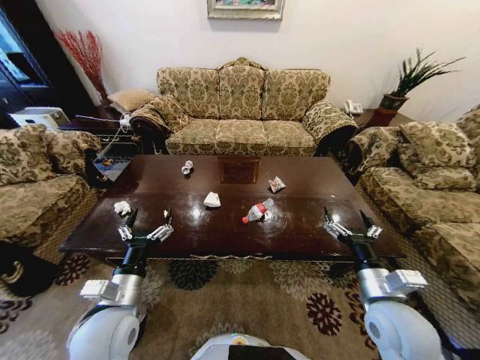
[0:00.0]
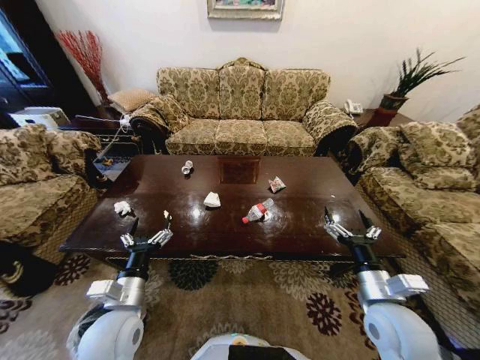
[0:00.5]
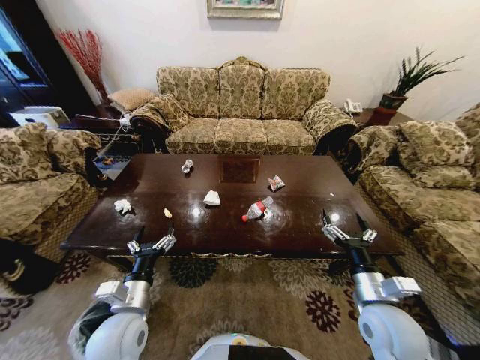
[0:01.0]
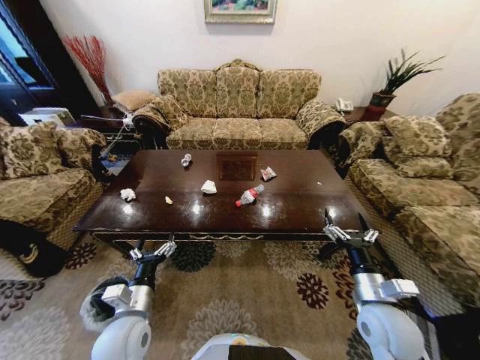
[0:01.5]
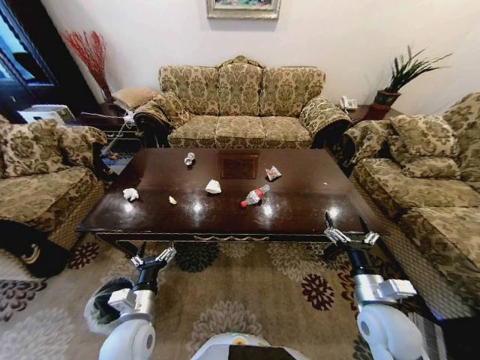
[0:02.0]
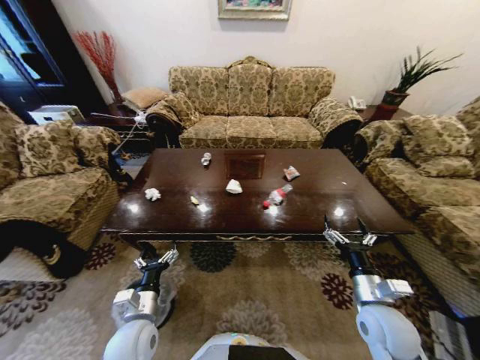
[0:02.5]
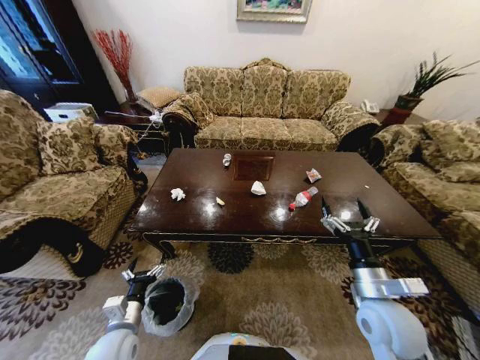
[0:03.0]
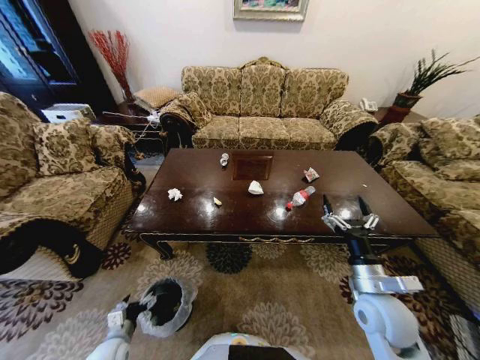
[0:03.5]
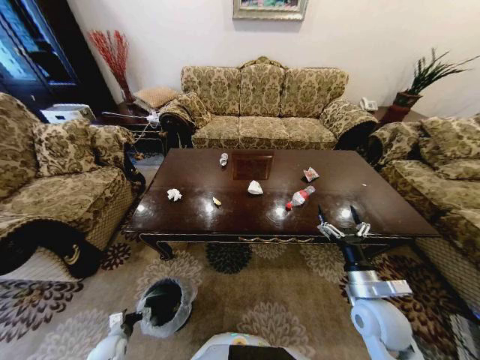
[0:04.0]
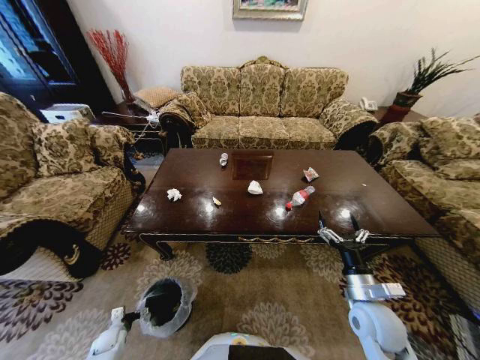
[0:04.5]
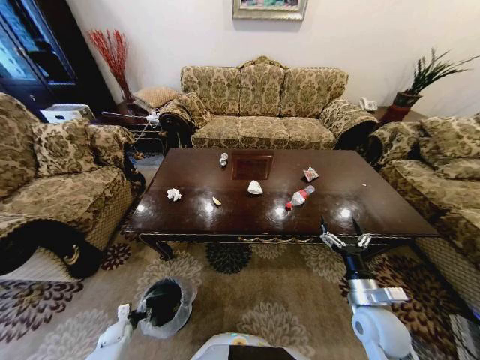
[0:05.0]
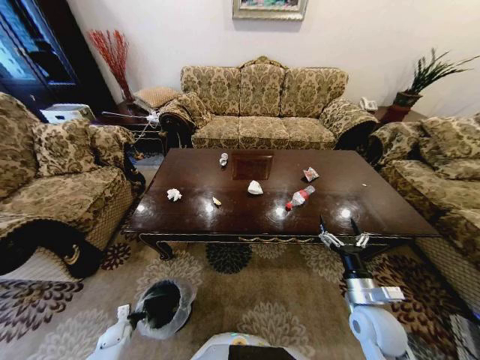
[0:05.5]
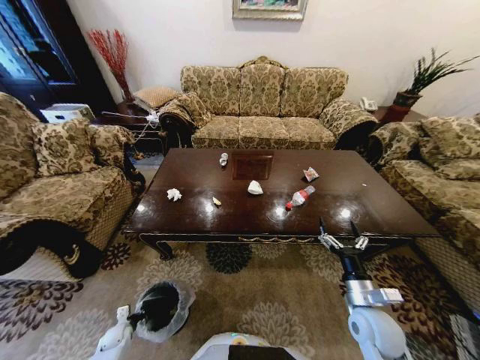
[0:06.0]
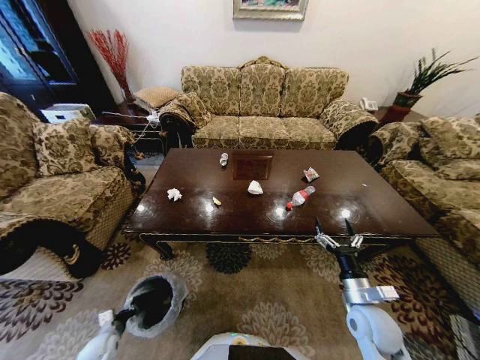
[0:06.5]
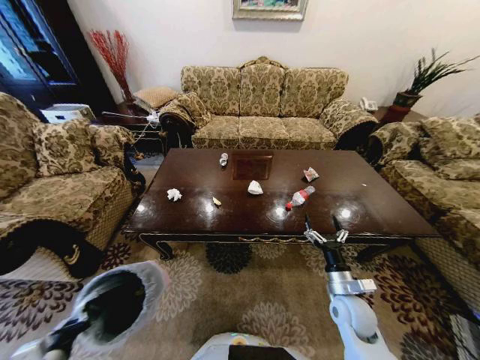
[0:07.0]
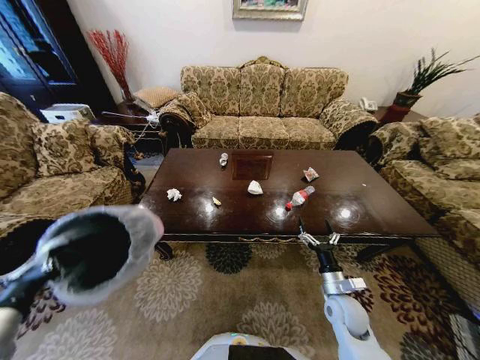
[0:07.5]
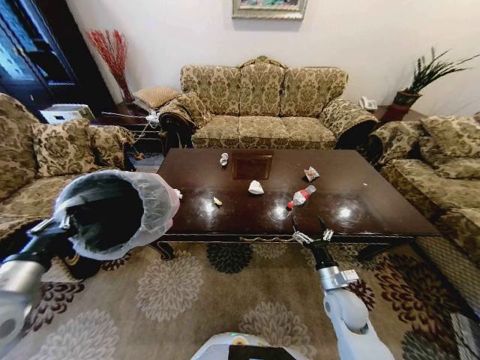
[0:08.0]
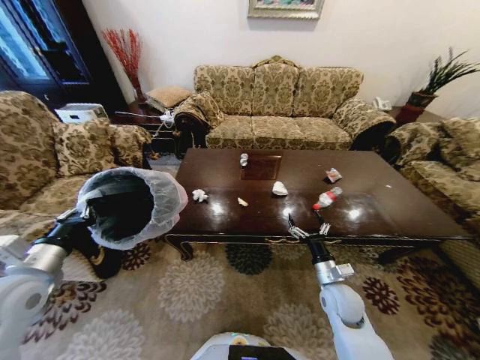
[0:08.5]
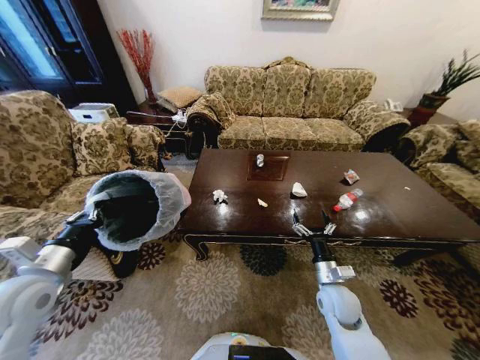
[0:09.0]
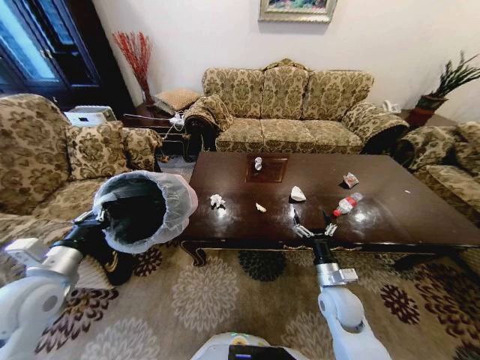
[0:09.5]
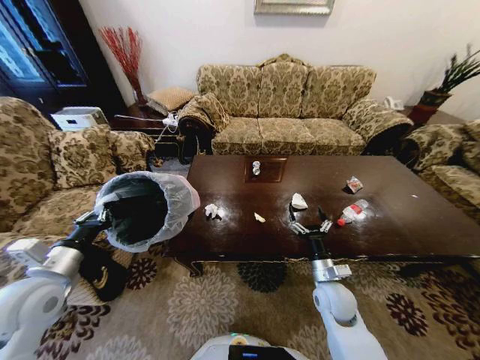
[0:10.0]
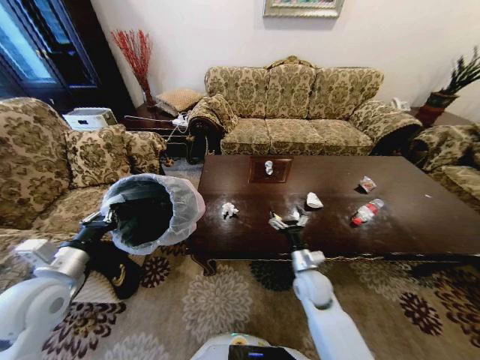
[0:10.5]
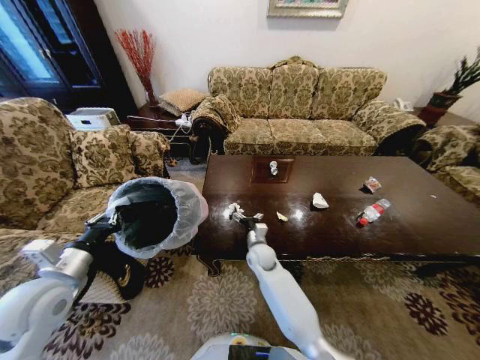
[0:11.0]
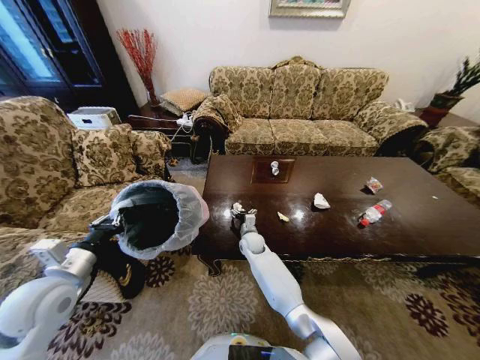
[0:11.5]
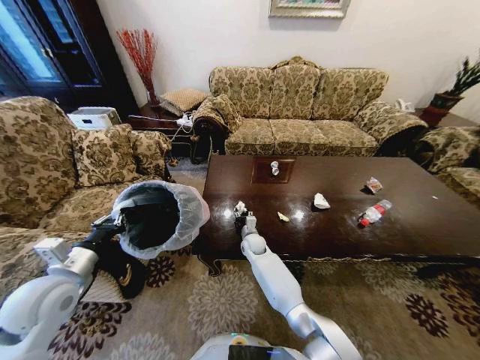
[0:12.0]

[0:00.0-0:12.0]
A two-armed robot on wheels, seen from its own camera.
Task of the whole recording: Move to the front of the table and place the trash on the table into the trash bin.
0:02.0 to 0:04.0: The left gripper moves downward and to the left, about 30 cm.
0:04.0 to 0:06.0: The left gripper shifts roughly 5 cm downward, and closes.
0:06.0 to 0:08.0: The right gripper travels forward by approximately 5 cm; the left gripper travels upward by roughly 50 cm.
0:10.0 to 0:12.0: The right gripper moves to the left and forward, approximately 30 cm, and closes up.

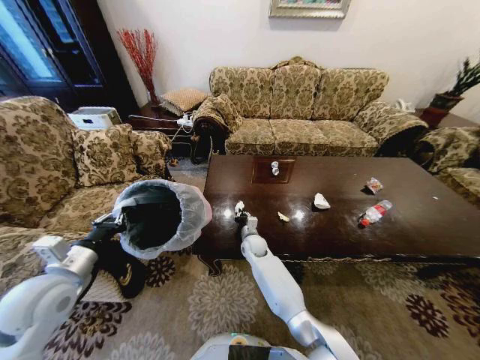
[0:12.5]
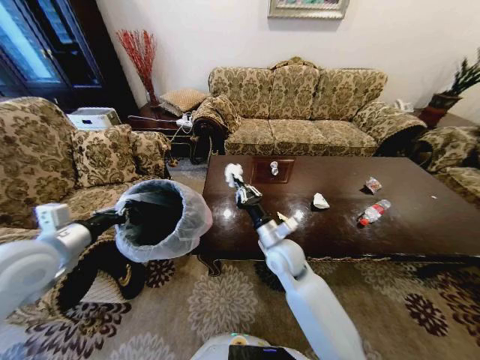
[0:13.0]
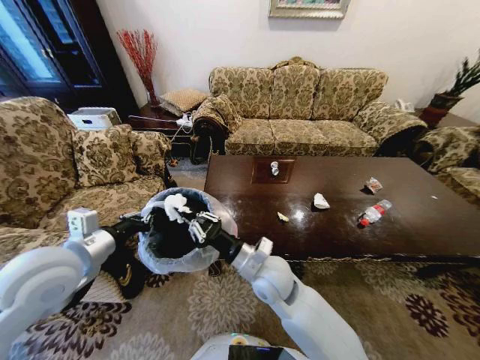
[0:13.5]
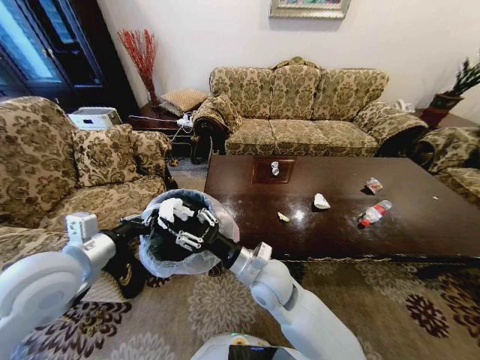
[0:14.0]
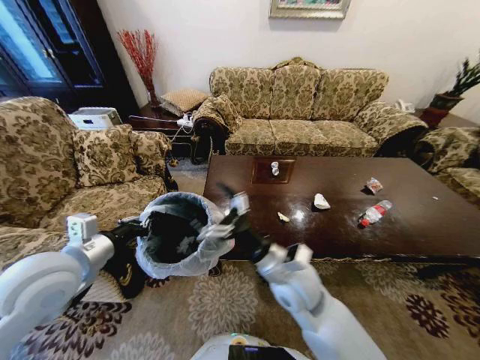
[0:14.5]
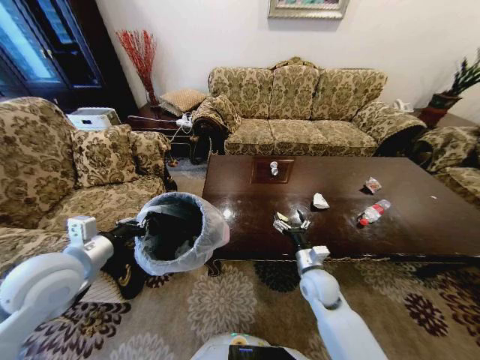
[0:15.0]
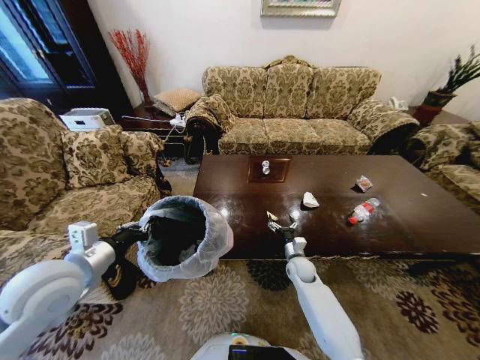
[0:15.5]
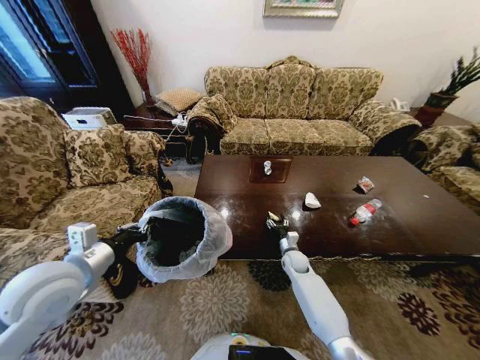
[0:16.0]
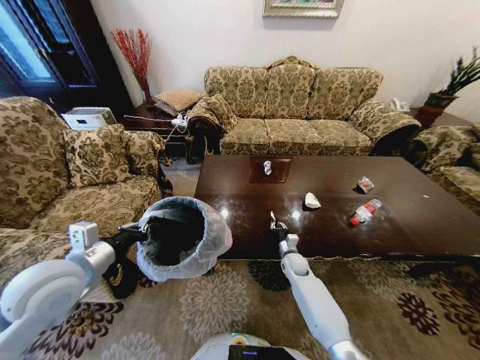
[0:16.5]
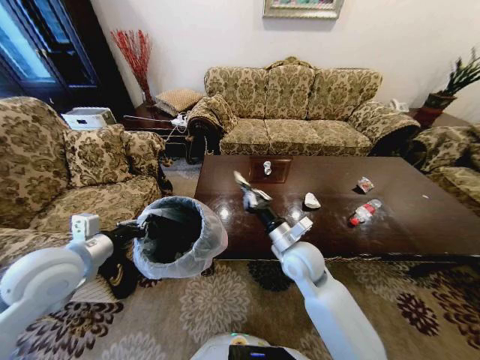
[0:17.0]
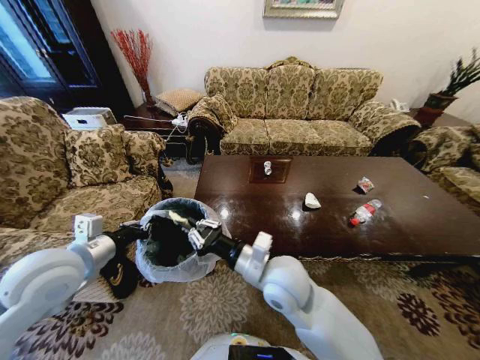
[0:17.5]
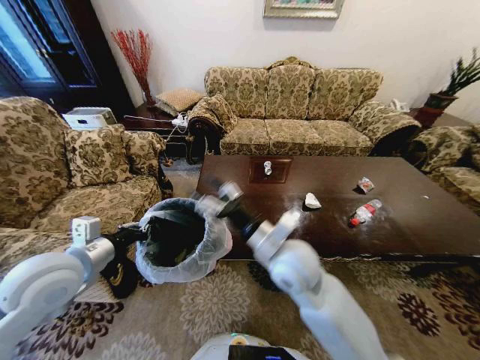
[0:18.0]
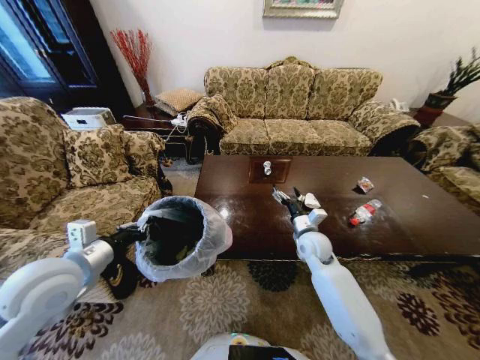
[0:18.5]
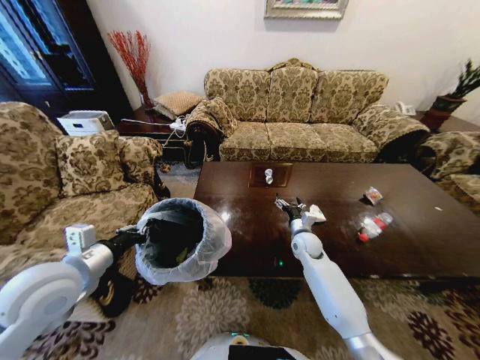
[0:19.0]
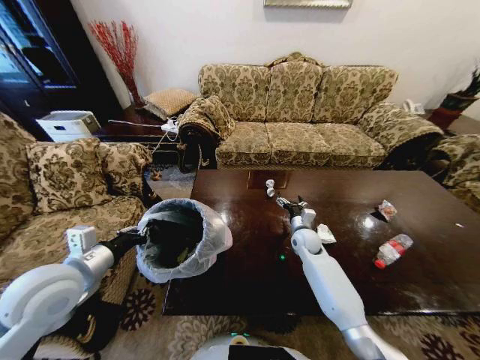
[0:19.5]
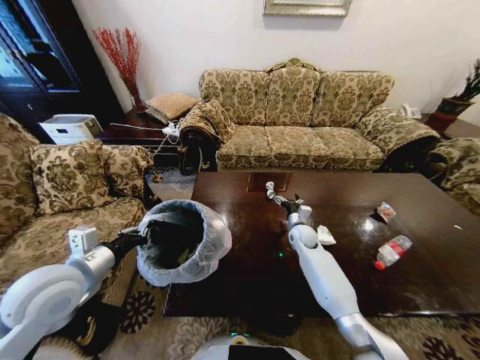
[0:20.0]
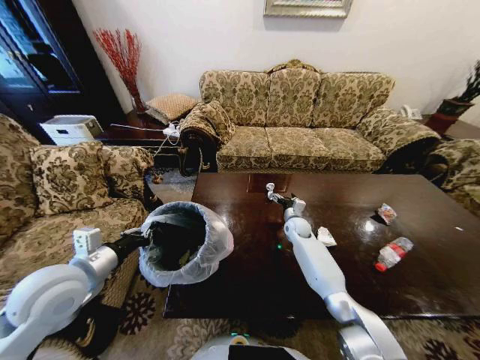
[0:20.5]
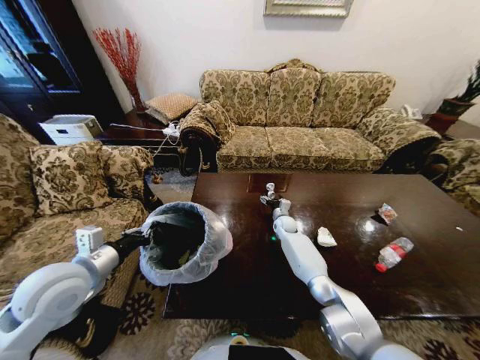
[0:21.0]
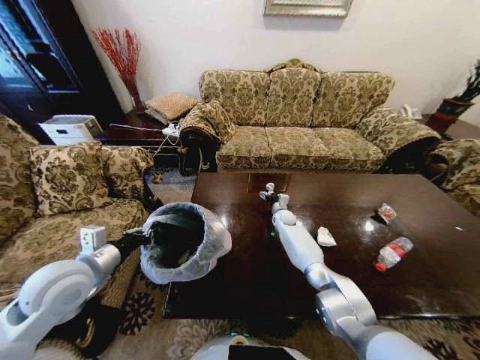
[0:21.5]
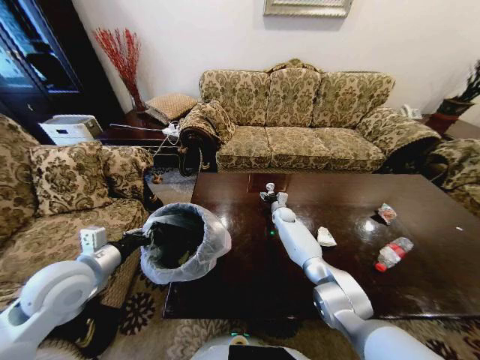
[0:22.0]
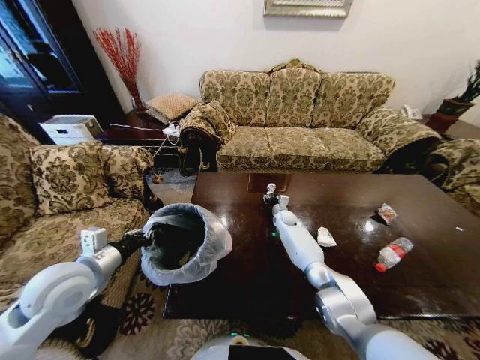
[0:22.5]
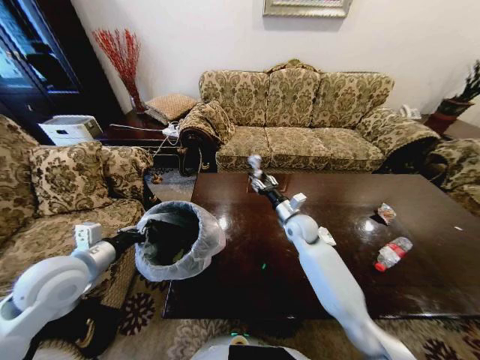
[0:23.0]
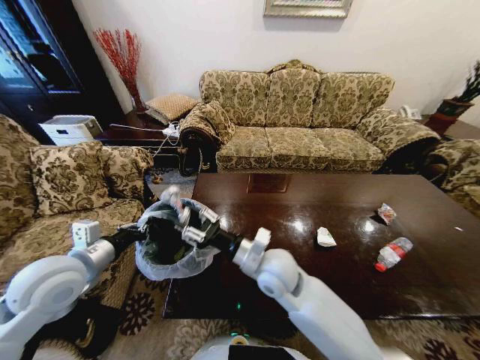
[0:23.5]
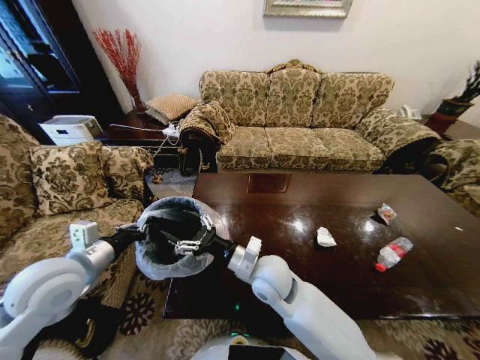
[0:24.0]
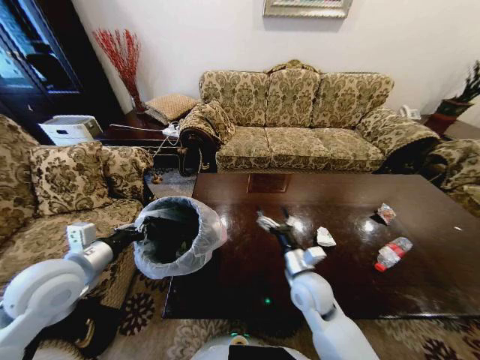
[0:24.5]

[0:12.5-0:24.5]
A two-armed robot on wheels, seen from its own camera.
Task of the whole recording: Move to the front of the table and place the trash on the table into the trash bin.
0:12.5 to 0:14.5: The left gripper is displaced upward and to the right by roughly 10 cm, while the right gripper travels upward and backward by approximately 30 cm, and opens its fingers.
0:14.5 to 0:16.5: The right gripper moves downward and forward, roughly 30 cm, and closes its fingers.
0:16.5 to 0:18.5: The right gripper shifts approximately 15 cm upward, and opens.
0:18.5 to 0:20.5: The right gripper travels forward and downward by about 15 cm.
0:20.5 to 0:22.5: The right gripper moves forward, roughly 5 cm, and closes up.
0:22.5 to 0:24.5: The right gripper moves backward, approximately 30 cm, and opens.

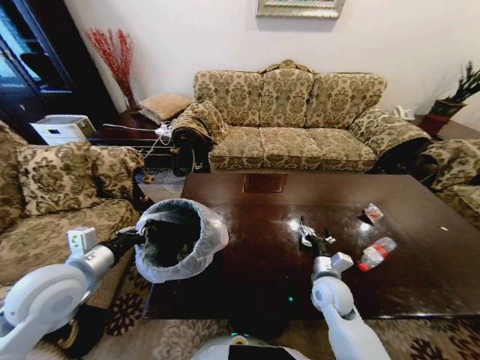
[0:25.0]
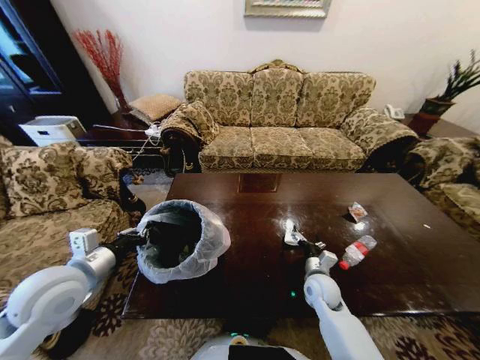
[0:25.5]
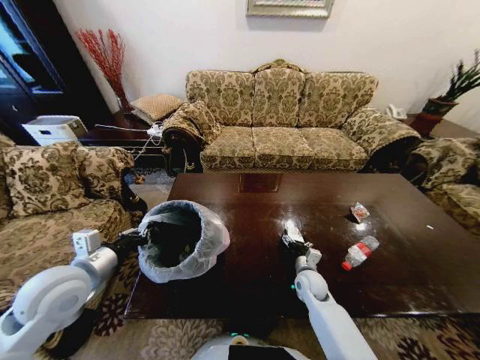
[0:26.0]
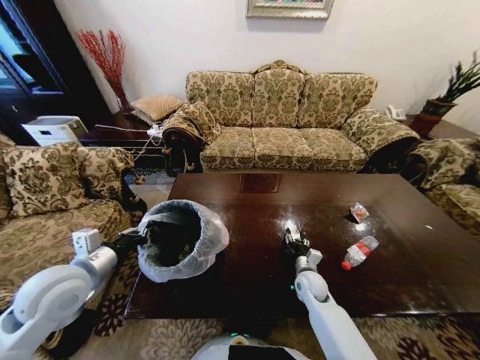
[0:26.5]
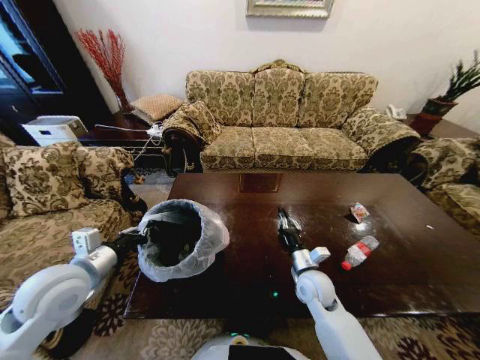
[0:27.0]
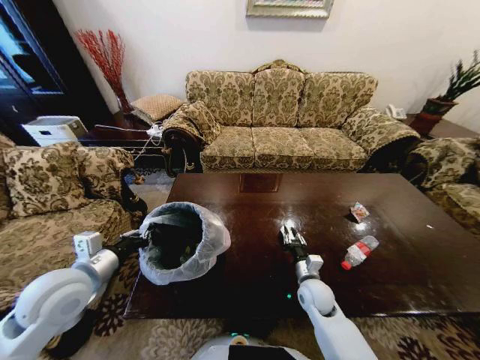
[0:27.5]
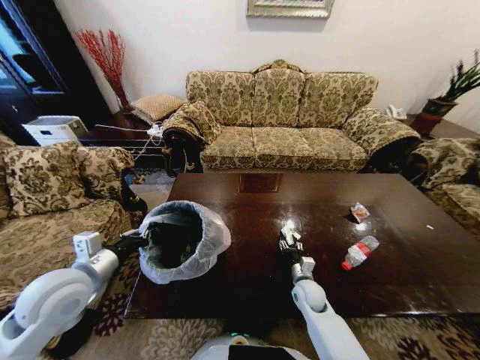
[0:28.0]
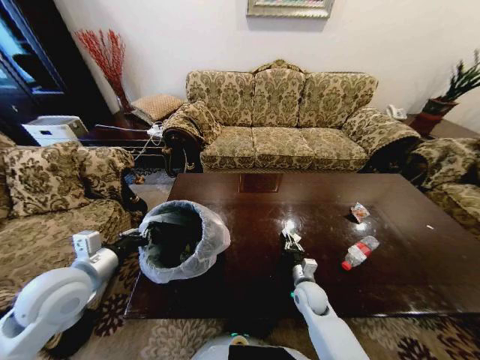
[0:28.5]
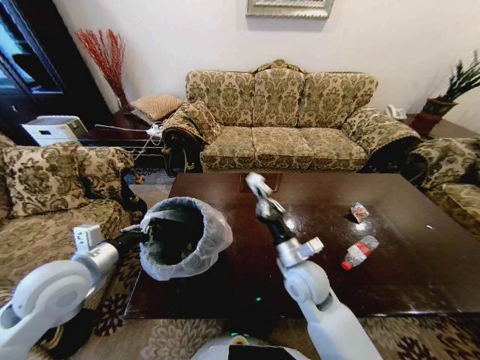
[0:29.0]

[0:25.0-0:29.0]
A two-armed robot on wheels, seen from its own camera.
Task of the whole recording: Move to the front of the table and place the trash on the table into the trash bin.
0:25.0 to 0:27.0: The right gripper moves about 10 cm downward and comes back, and closes.
0:27.0 to 0:29.0: The right gripper goes some 15 cm upward and to the left, and opens and closes again.
